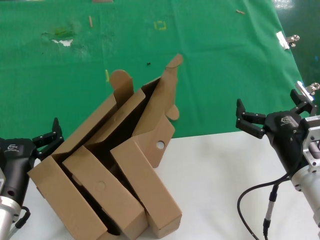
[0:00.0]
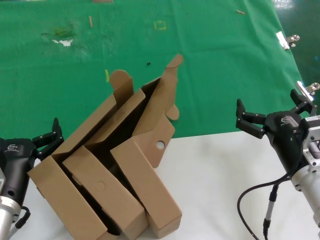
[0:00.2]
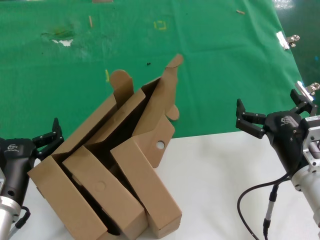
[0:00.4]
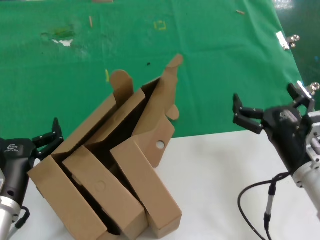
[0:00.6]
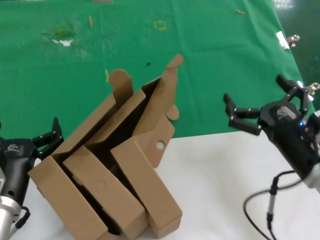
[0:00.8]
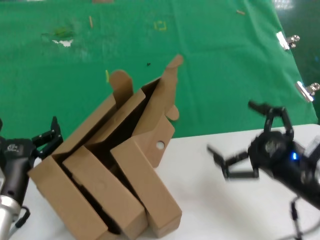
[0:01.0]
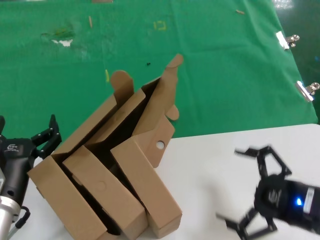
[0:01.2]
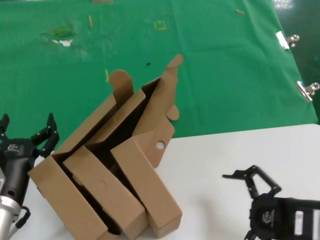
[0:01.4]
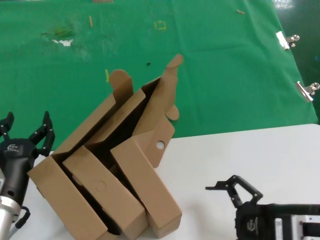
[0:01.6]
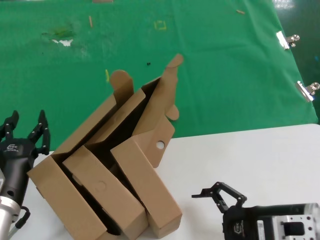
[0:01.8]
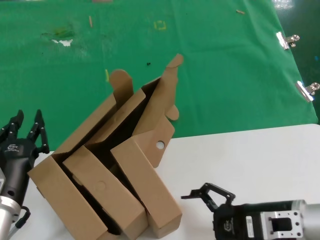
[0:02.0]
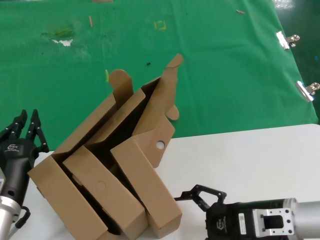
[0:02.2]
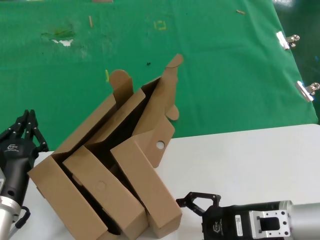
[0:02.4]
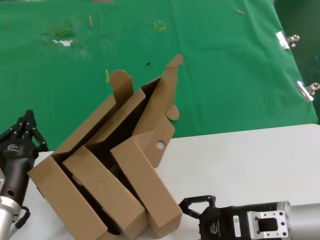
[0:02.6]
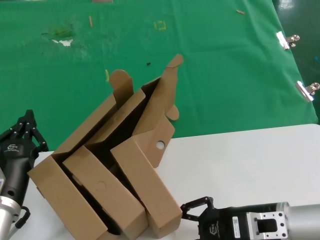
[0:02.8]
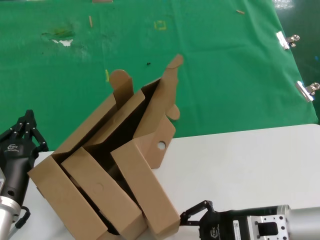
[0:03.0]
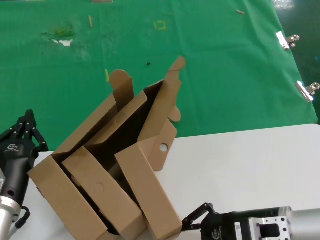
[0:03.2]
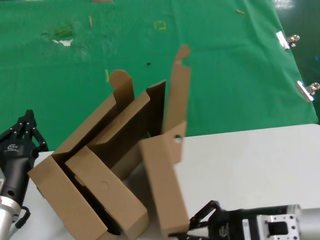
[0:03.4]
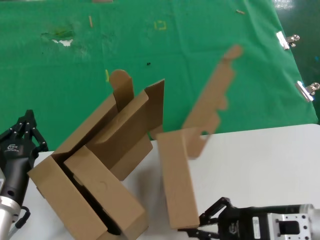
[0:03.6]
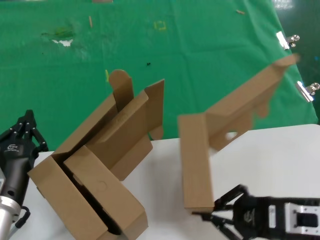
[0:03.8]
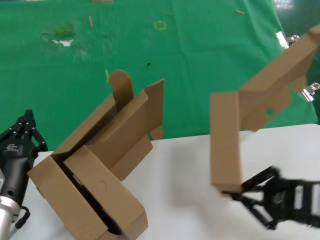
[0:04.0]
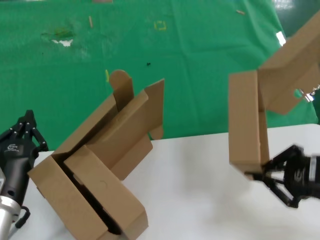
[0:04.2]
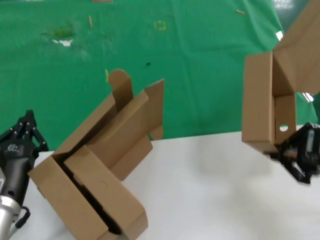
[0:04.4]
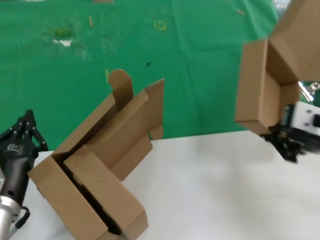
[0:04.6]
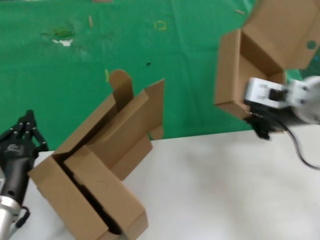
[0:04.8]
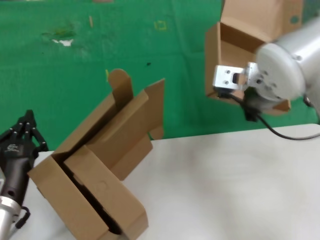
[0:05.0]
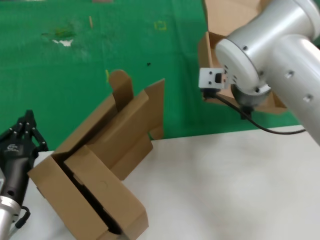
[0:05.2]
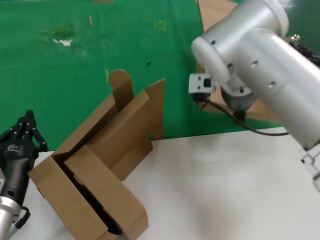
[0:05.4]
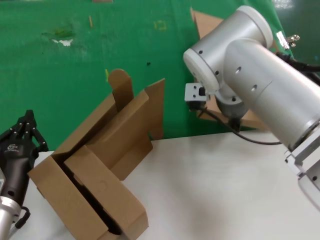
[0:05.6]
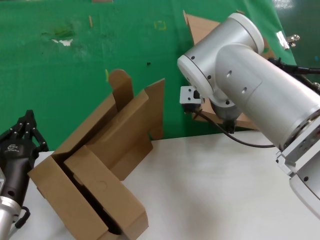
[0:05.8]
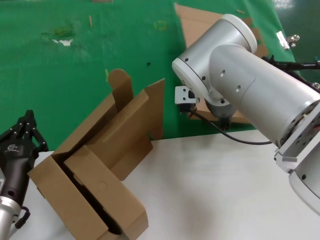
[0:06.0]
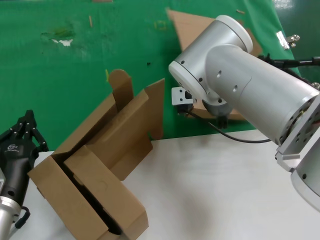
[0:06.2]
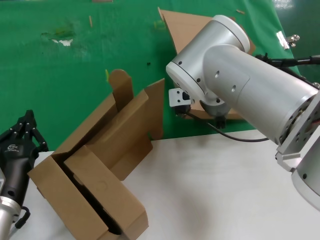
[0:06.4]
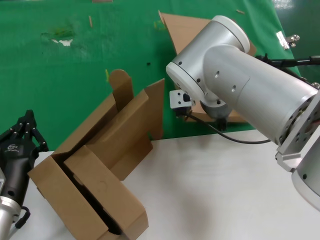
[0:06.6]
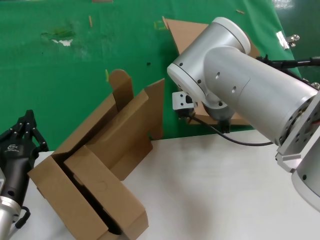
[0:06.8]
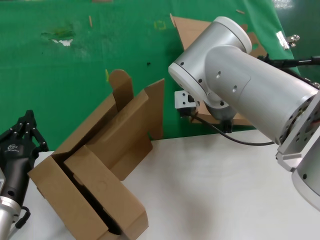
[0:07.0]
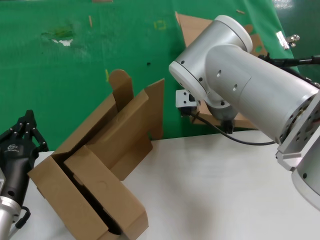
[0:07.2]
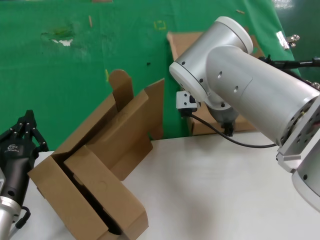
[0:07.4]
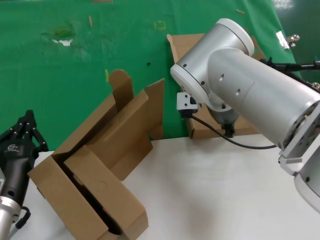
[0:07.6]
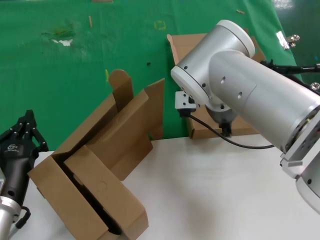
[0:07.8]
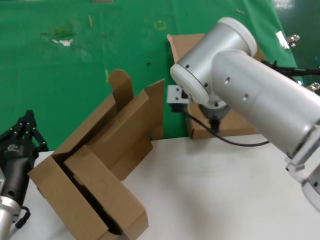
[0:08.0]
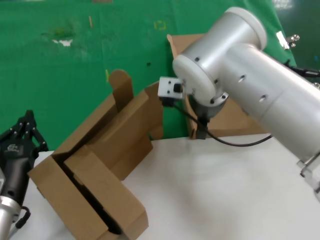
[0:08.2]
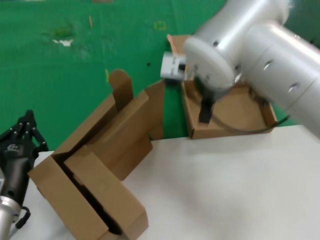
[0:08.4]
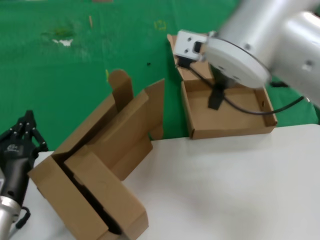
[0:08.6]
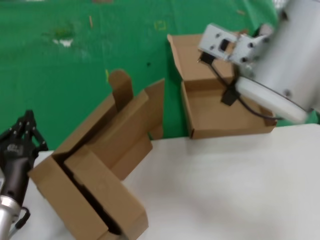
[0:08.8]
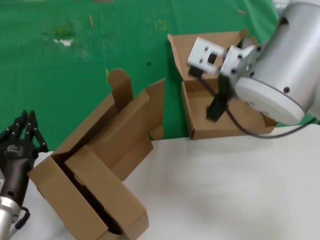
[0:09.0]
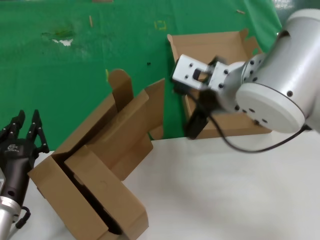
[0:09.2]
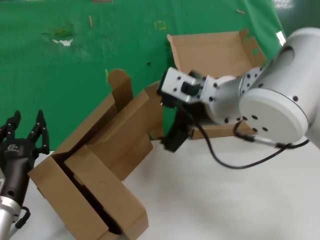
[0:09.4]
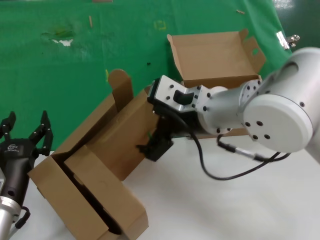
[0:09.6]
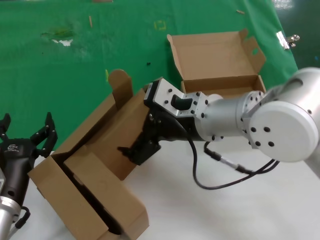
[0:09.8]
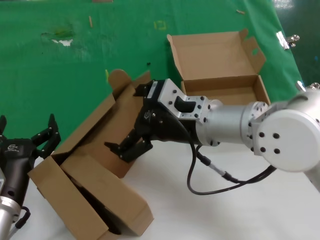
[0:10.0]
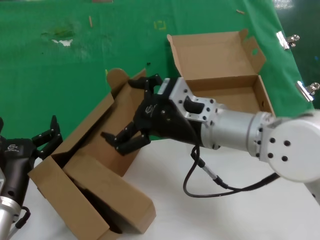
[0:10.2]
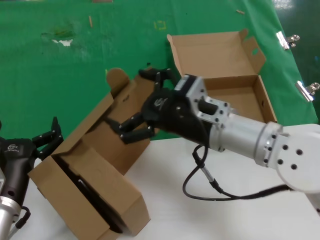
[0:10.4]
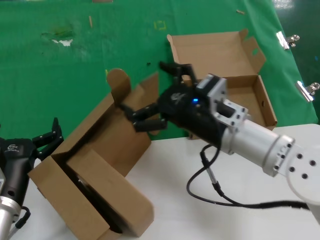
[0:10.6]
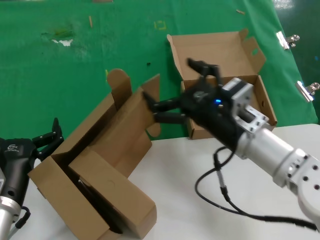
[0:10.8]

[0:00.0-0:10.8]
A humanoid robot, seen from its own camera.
Task of the whole recording: pick up the paper box and put it at the back.
Step, 0:00.0 to 0:03.4: Grasp the paper box.
Step, 0:03.6 to 0:07.4: Place the paper box on the table.
0:00.0 to 0:01.6: The right hand goes about 5 cm backward.
0:01.6 to 0:03.0: The right hand is displaced to the left by some 5 cm.
0:03.0 to 0:04.6: The right hand moves upward, roughly 20 cm.
0:04.6 to 0:06.2: The right hand travels forward and to the left by about 30 cm.
0:06.2 to 0:07.8: The hands make only small movements.
0:07.8 to 0:09.2: The right hand heads backward and upward, covering approximately 15 cm.
0:09.2 to 0:10.8: The right hand is displaced downward and to the right by approximately 15 cm.
